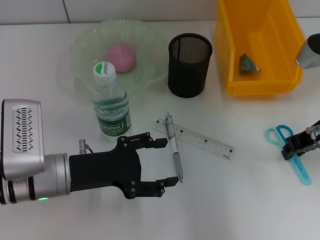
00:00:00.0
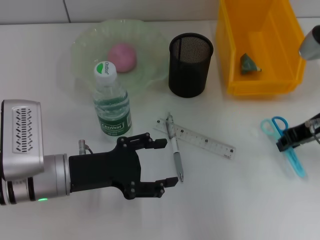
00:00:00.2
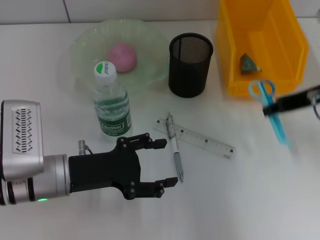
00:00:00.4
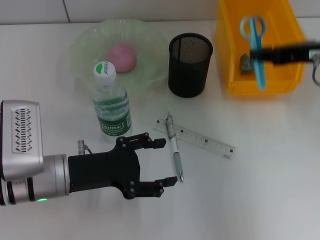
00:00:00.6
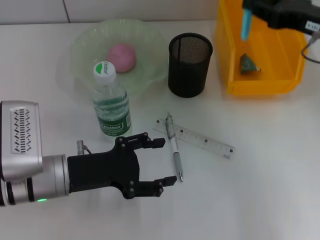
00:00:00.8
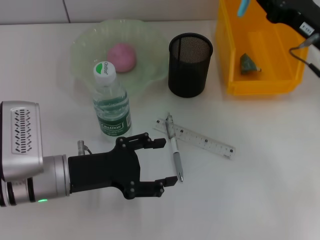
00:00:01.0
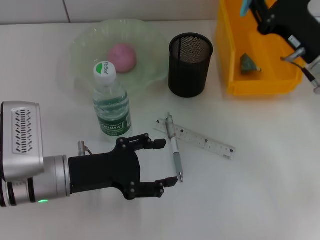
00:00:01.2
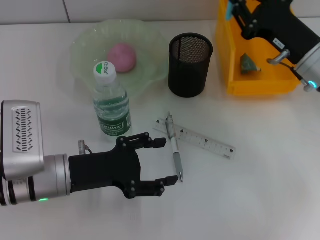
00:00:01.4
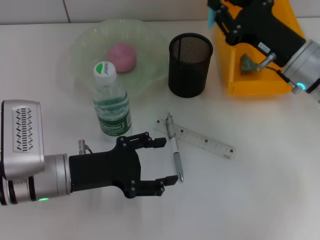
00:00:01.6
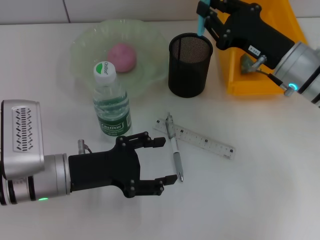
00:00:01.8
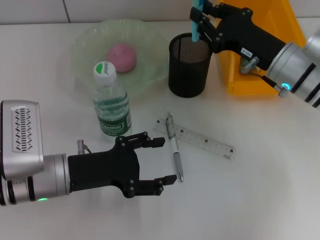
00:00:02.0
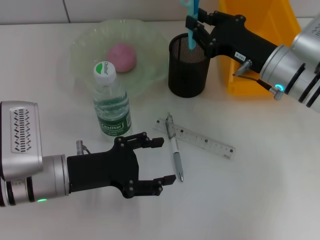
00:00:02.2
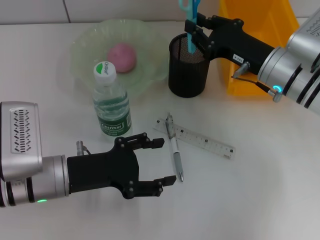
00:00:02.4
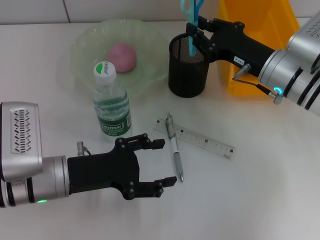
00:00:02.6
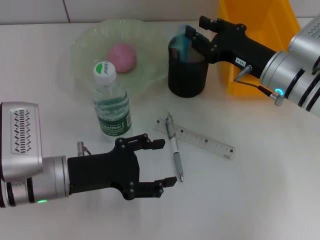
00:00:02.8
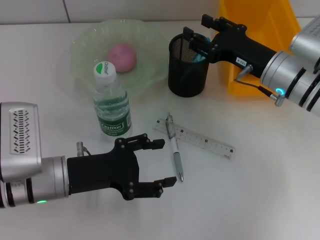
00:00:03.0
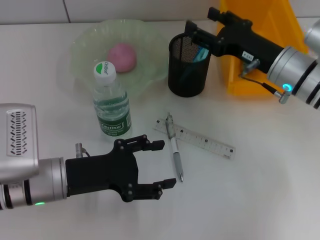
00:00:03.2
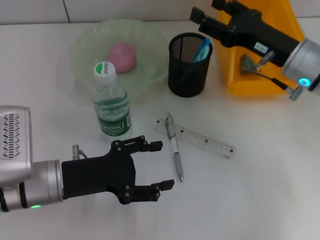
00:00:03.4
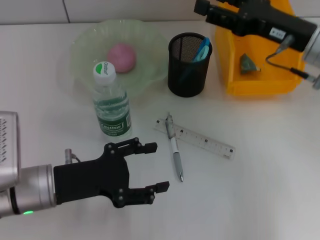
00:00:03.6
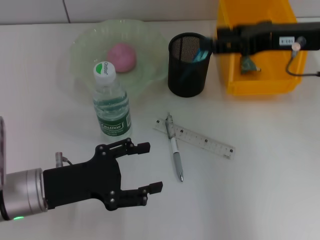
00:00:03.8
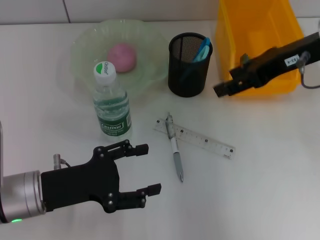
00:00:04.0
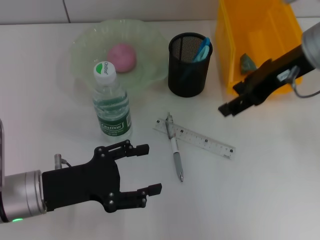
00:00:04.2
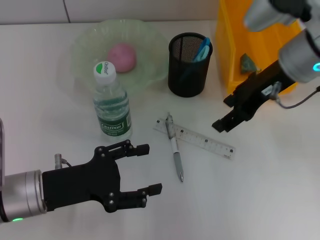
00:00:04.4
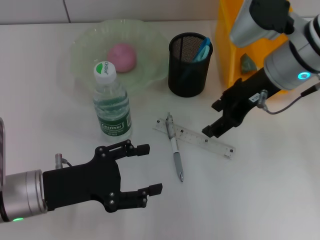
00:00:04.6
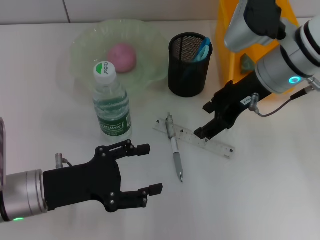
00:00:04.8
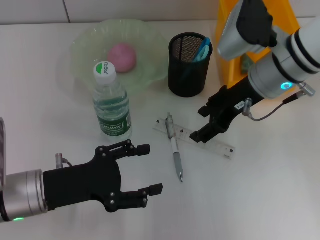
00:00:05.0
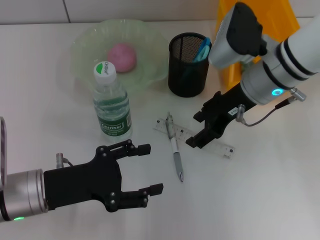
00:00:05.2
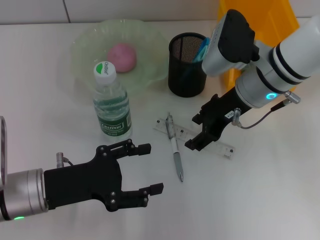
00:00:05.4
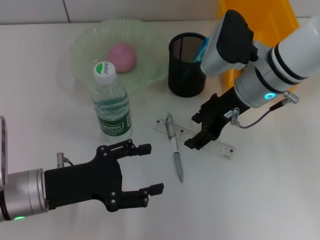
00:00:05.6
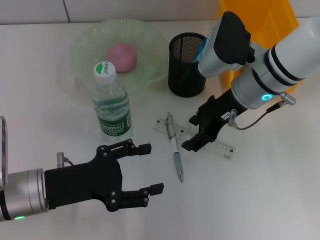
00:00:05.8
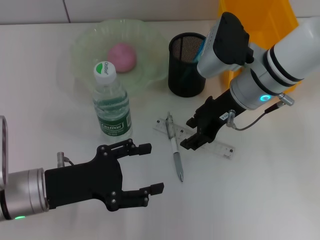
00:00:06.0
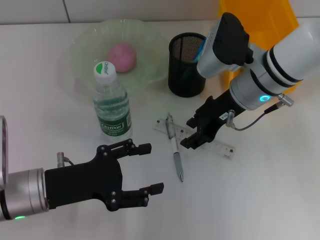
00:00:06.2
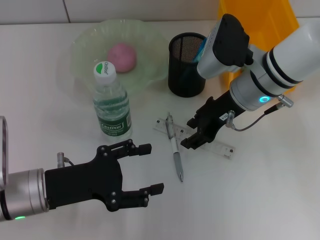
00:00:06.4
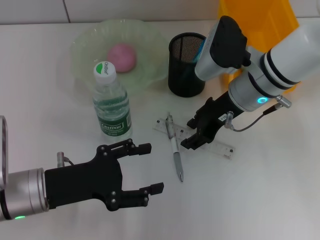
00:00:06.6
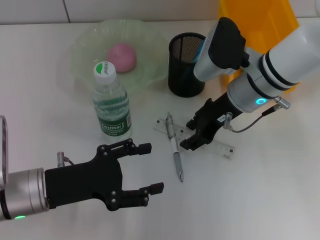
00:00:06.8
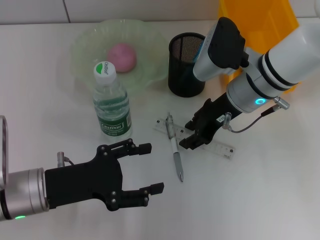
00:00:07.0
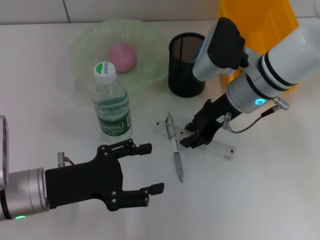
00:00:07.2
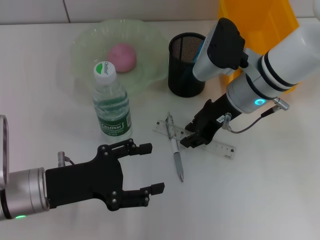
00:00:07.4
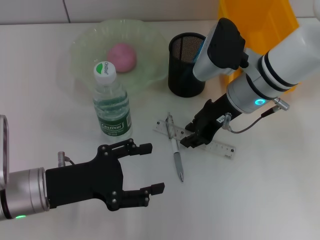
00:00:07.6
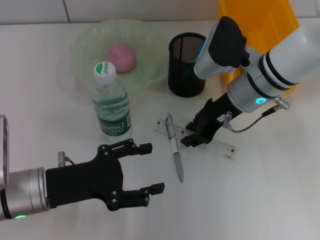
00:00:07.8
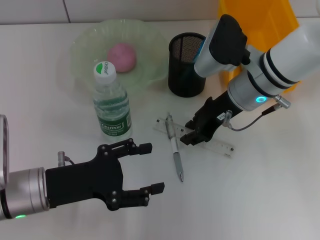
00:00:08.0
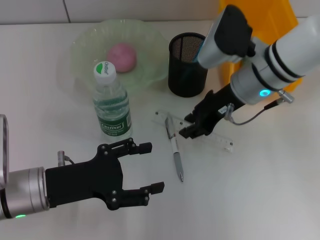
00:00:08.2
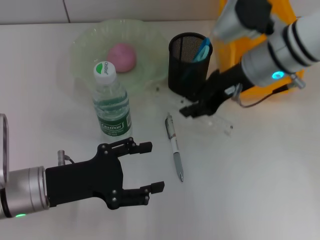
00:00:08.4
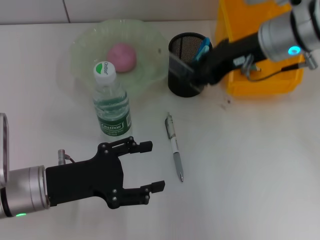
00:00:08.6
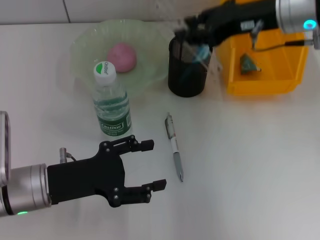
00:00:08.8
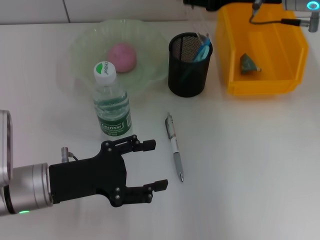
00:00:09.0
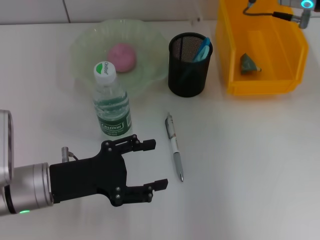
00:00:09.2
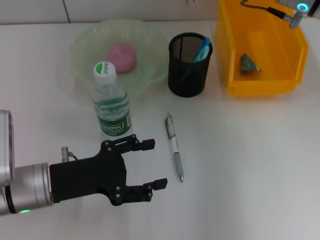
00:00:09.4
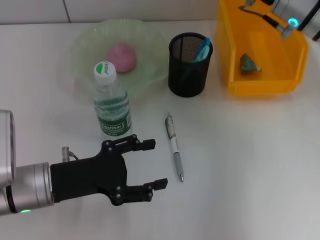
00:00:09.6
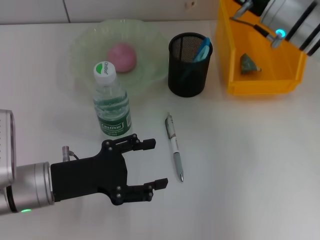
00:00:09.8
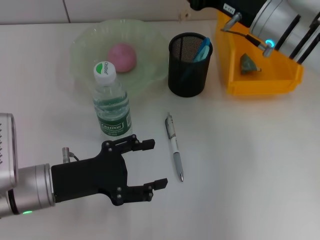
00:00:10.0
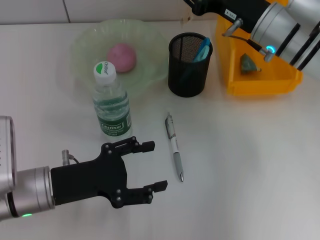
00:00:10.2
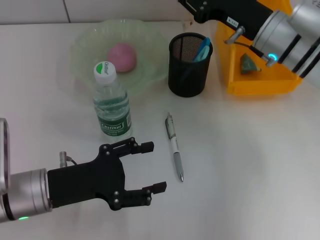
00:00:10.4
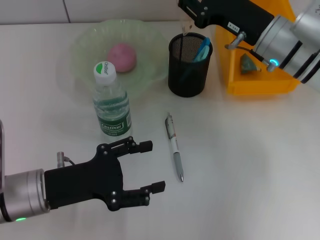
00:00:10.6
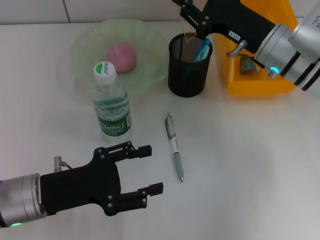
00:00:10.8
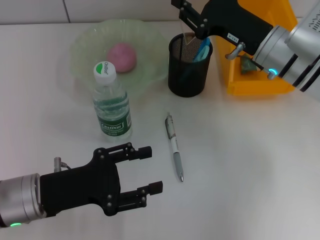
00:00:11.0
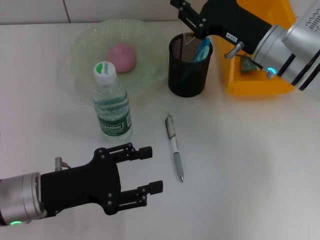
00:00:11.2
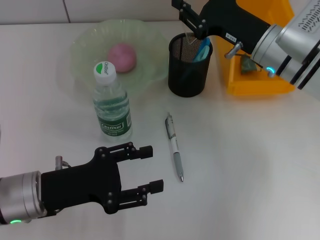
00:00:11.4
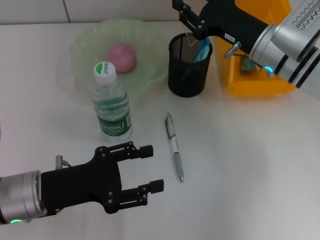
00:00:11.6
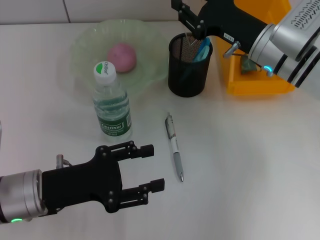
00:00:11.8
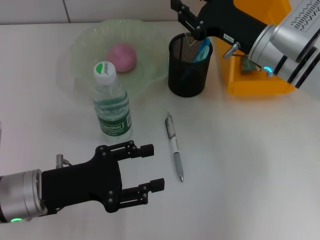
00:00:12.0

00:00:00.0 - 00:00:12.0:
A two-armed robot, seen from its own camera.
Step, 00:00:00.0 - 00:00:02.8: Place the blue scissors into the pen holder with the right hand.
Step, 00:00:03.2 - 00:00:07.6: Grab the ruler with the right hand.
00:00:00.0 - 00:00:01.6: The right gripper moves some 5 cm upward and comes back.
00:00:01.6 - 00:00:03.0: The right gripper opens up.
00:00:03.0 - 00:00:04.4: The right gripper shifts approximately 10 cm upward, and opens up.
00:00:04.4 - 00:00:06.0: The right gripper goes roughly 5 cm downward.
00:00:06.0 - 00:00:07.6: The right gripper closes.
00:00:07.6 - 00:00:09.0: The right gripper goes about 15 cm upward and to the right.
00:00:09.0 - 00:00:10.4: The right gripper travels downward by approximately 10 cm.
00:00:10.4 - 00:00:12.0: There are only small adjustments of the grippers.

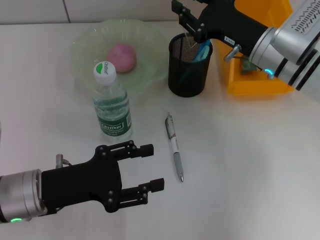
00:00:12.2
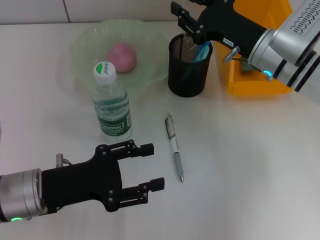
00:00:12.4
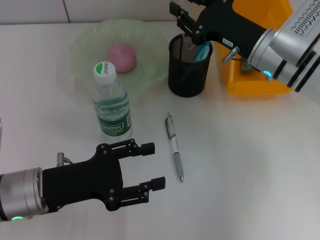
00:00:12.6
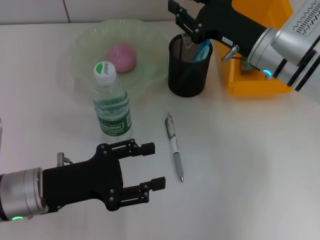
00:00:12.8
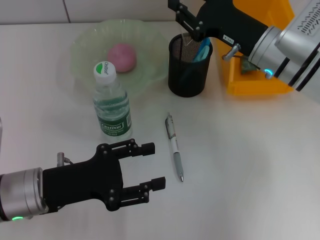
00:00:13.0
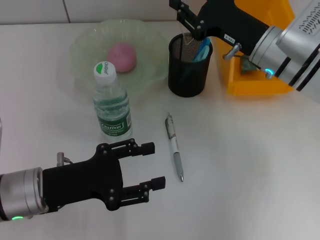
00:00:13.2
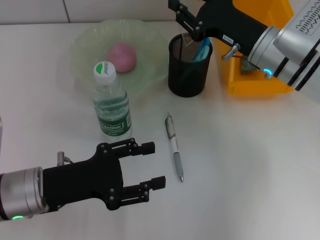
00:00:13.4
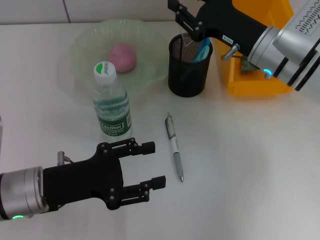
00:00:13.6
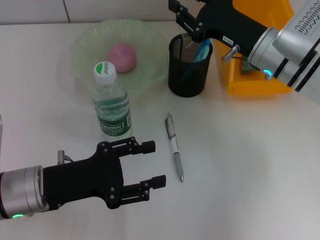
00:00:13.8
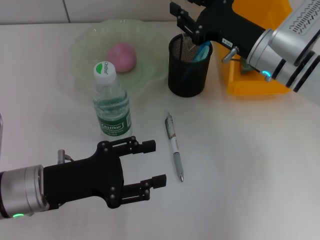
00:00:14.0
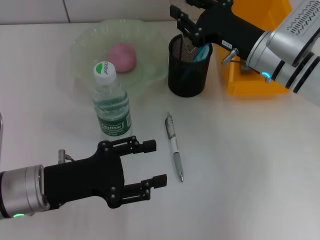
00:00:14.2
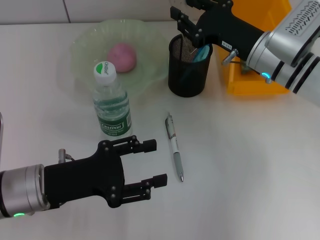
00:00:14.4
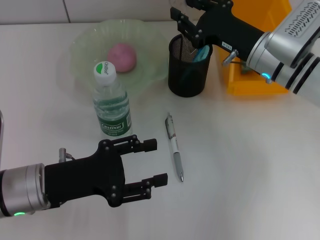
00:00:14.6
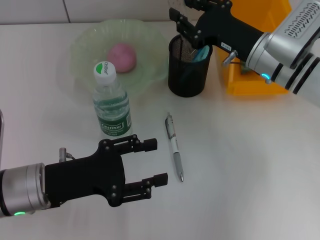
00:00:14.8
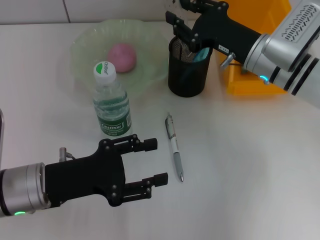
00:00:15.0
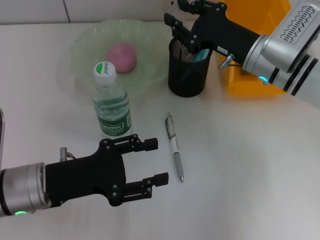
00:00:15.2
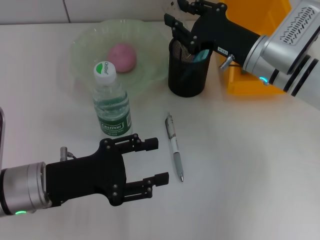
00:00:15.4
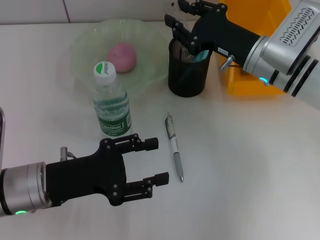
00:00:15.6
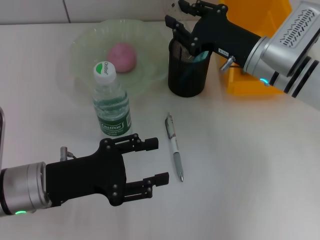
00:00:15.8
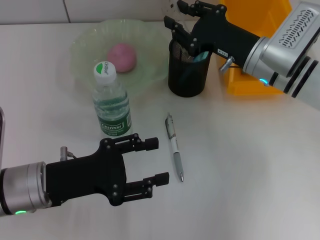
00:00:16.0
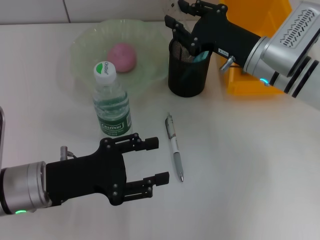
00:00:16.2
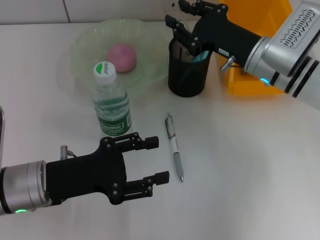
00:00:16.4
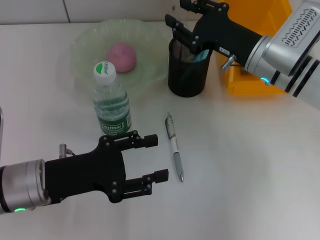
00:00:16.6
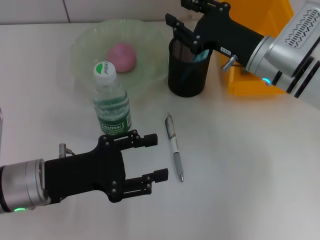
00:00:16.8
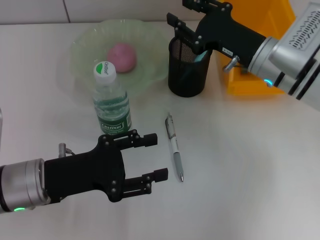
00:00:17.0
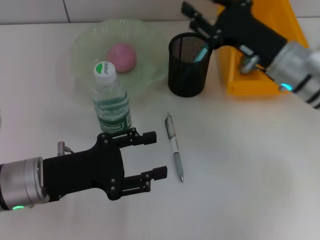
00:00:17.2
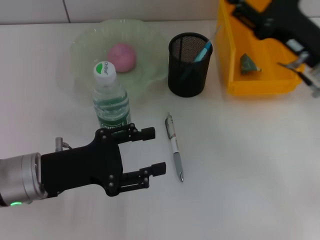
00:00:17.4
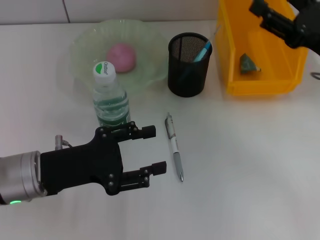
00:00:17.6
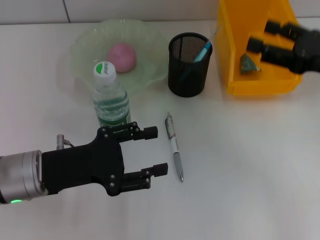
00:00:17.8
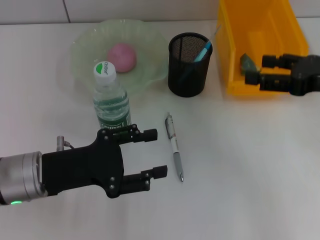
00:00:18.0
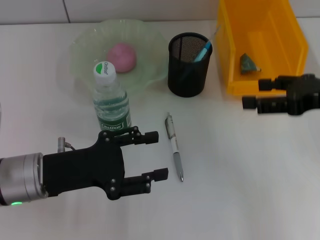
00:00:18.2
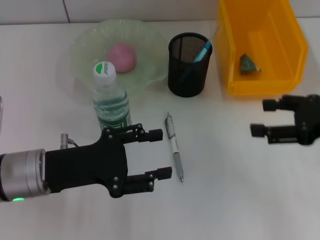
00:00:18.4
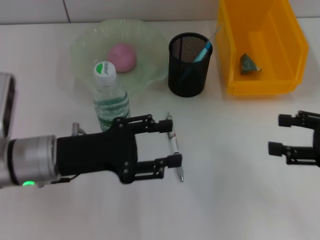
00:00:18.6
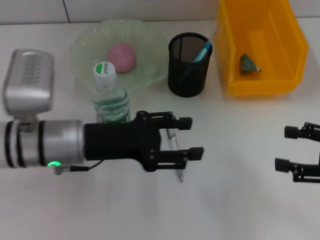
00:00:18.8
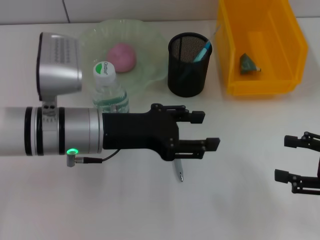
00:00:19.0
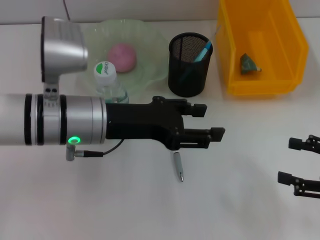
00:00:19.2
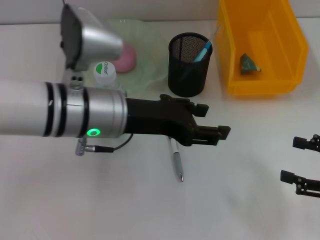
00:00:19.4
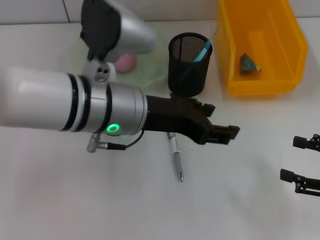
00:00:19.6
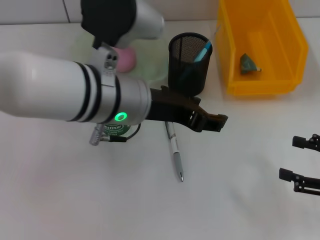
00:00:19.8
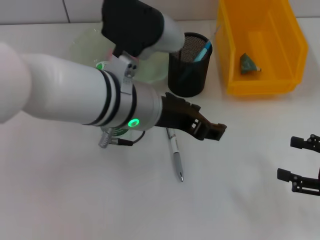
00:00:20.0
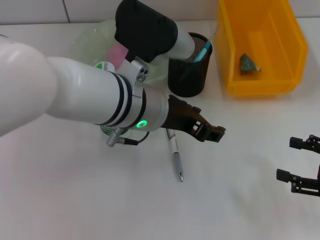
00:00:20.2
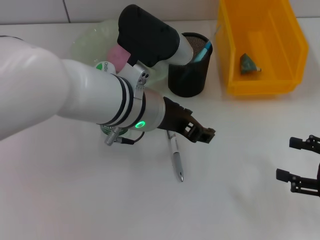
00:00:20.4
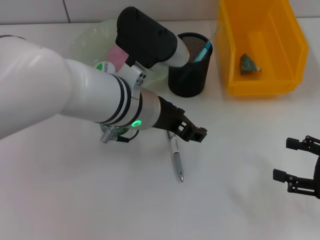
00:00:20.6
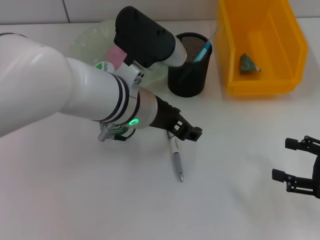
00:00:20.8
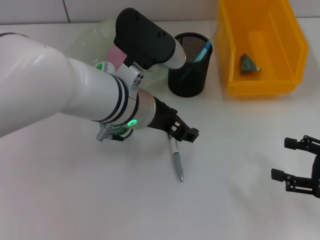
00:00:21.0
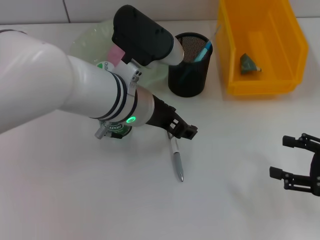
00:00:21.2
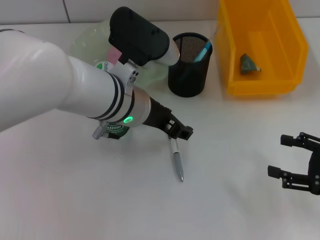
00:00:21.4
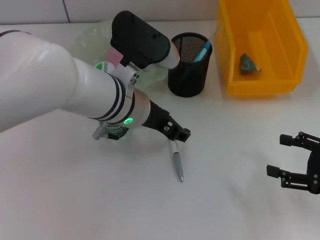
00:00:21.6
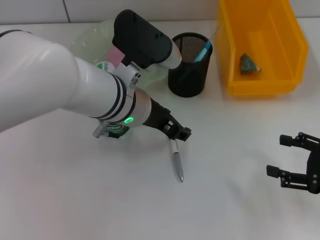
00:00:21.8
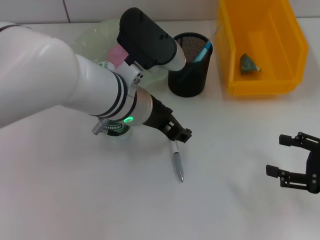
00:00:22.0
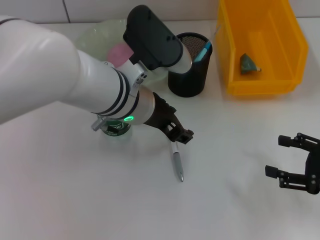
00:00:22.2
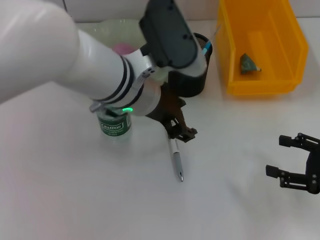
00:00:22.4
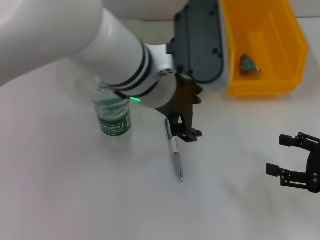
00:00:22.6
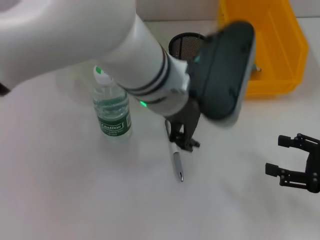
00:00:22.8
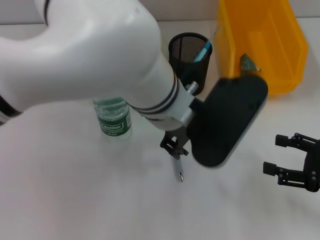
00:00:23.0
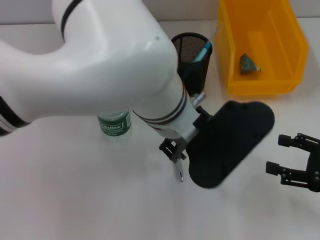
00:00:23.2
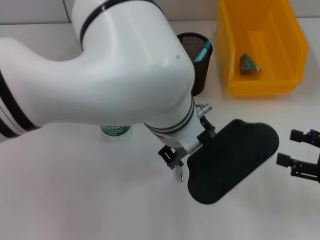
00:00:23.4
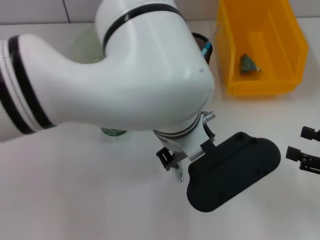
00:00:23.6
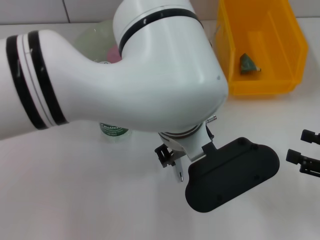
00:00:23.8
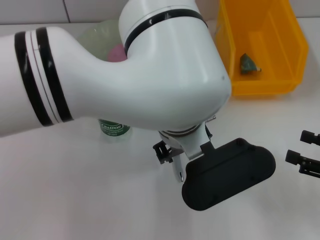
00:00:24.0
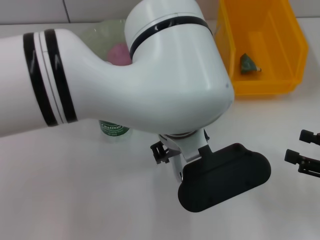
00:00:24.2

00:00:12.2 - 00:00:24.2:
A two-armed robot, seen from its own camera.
Step, 00:00:12.2 - 00:00:16.8: Place the ruler into the pen holder with the right hand.
00:00:12.2 - 00:00:16.6: Both grippers stay put.
00:00:16.6 - 00:00:18.2: The right gripper heads to the right, backward and upward, covering some 15 cm, and opens.
00:00:18.2 - 00:00:19.8: The right gripper is displaced downward, backward and to the right by approximately 15 cm; the left gripper heads to the right and upward, covering approximately 20 cm.
00:00:19.8 - 00:00:21.2: The left gripper shifts by roughly 5 cm.
00:00:21.2 - 00:00:22.6: The left gripper ends up some 5 cm from where it was.
00:00:22.6 - 00:00:24.2: The left gripper heads to the right, covering about 5 cm.
